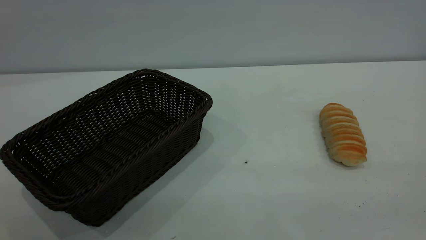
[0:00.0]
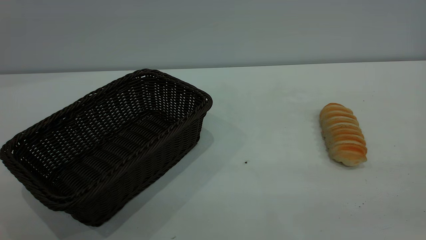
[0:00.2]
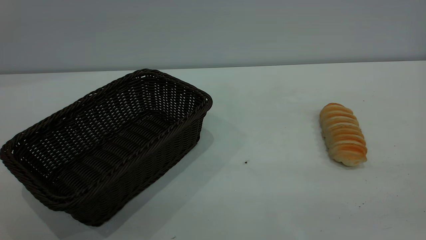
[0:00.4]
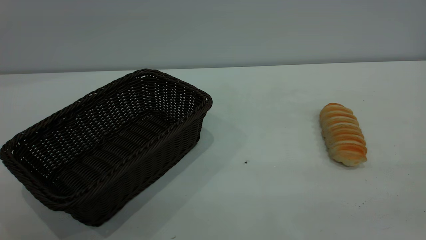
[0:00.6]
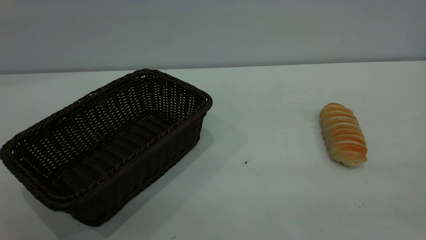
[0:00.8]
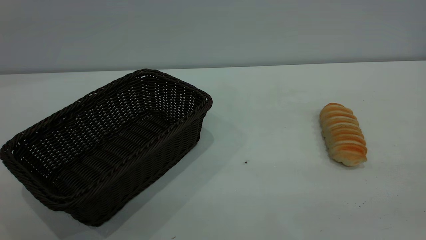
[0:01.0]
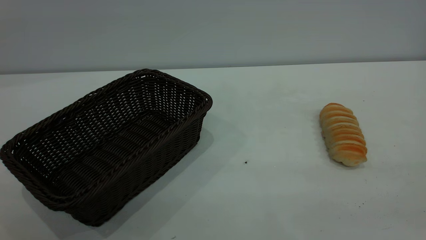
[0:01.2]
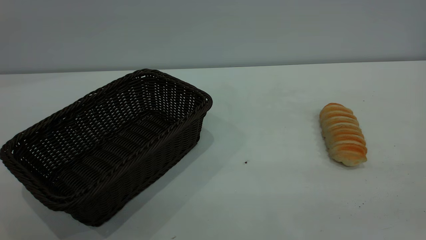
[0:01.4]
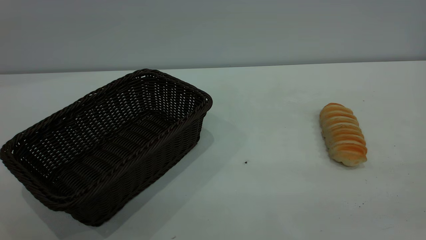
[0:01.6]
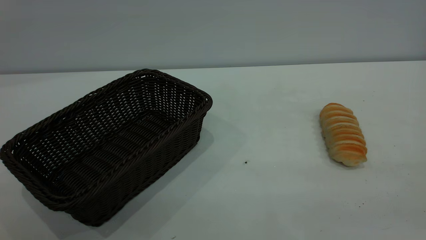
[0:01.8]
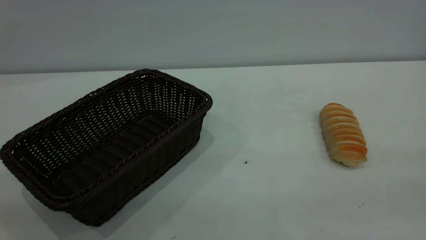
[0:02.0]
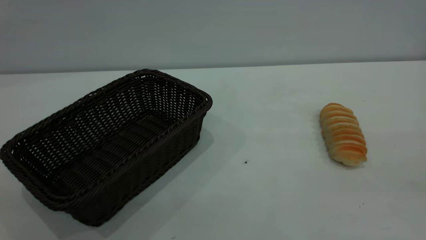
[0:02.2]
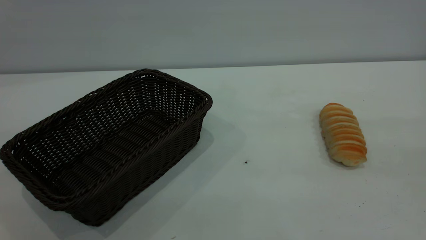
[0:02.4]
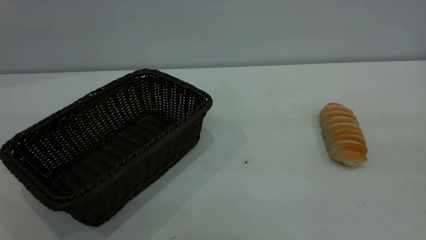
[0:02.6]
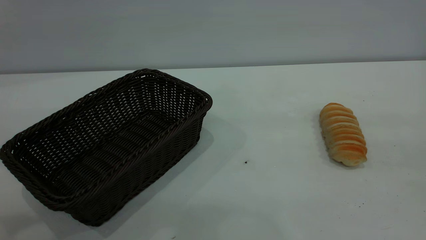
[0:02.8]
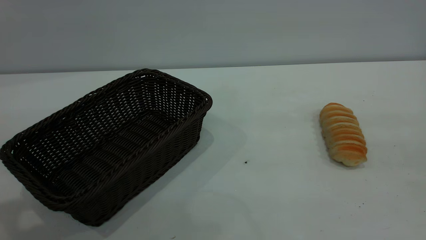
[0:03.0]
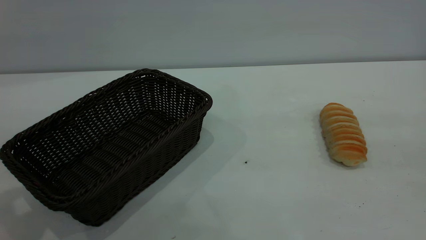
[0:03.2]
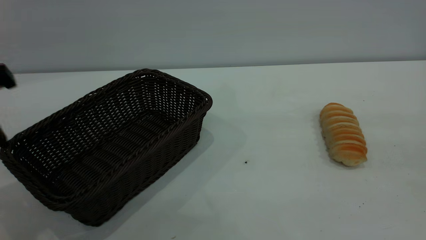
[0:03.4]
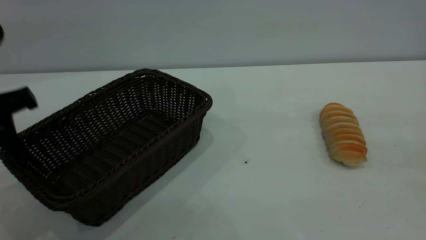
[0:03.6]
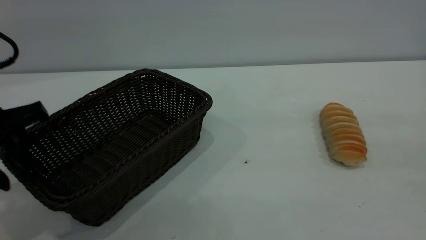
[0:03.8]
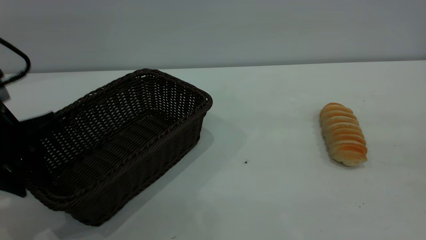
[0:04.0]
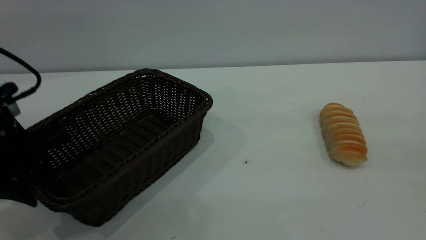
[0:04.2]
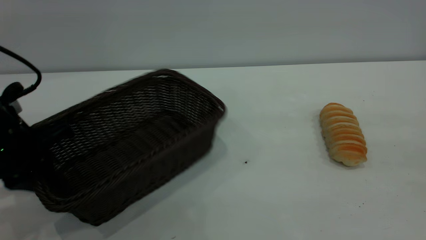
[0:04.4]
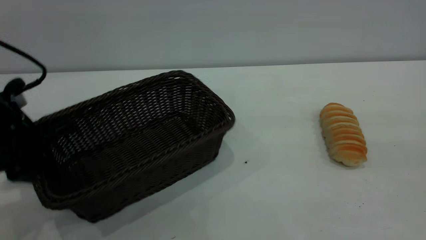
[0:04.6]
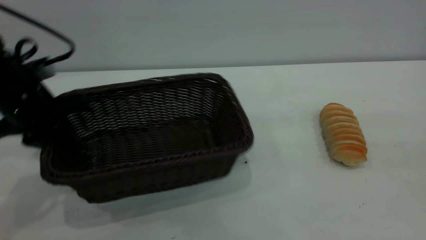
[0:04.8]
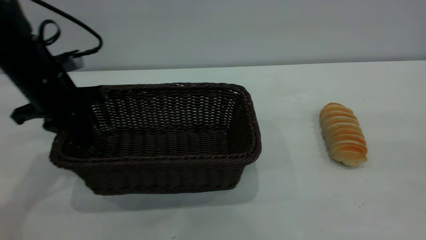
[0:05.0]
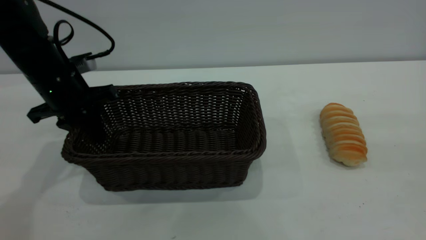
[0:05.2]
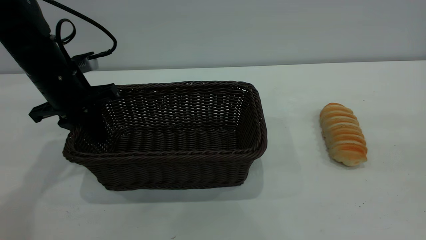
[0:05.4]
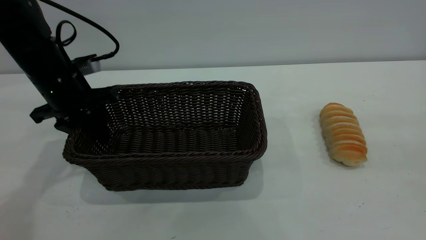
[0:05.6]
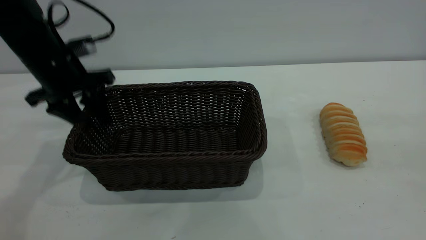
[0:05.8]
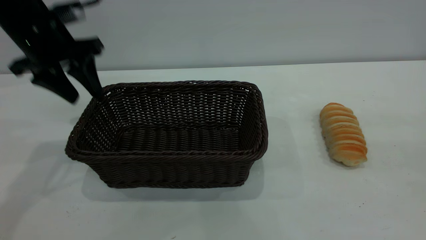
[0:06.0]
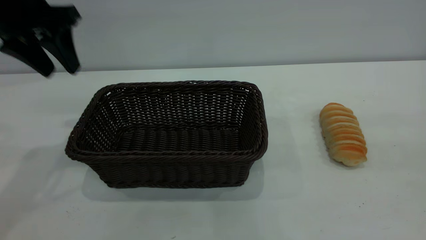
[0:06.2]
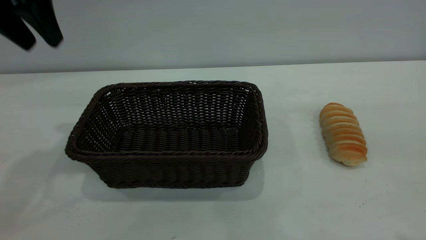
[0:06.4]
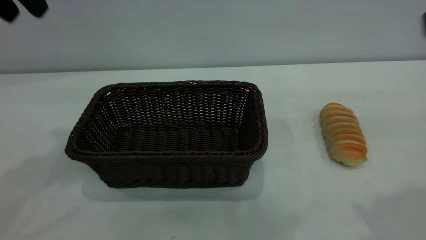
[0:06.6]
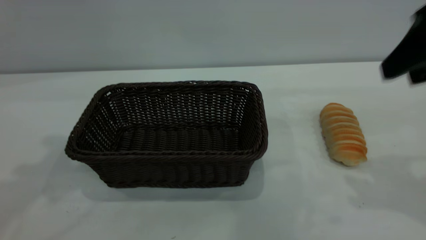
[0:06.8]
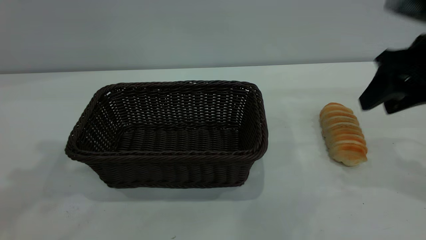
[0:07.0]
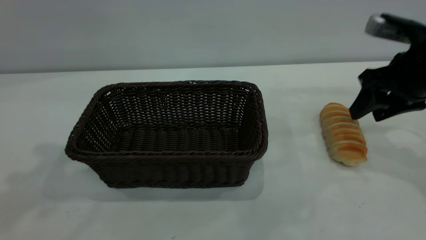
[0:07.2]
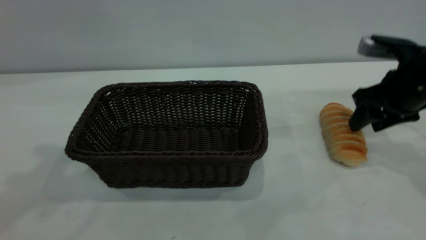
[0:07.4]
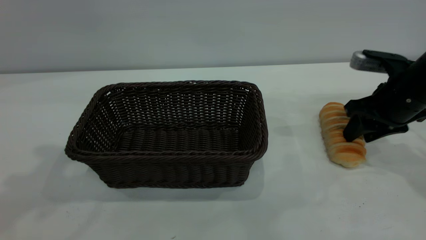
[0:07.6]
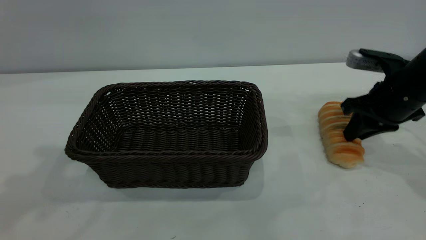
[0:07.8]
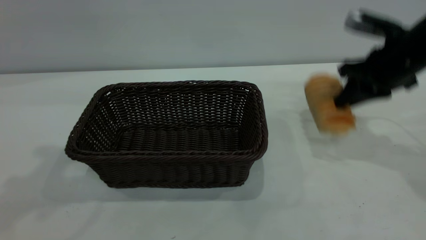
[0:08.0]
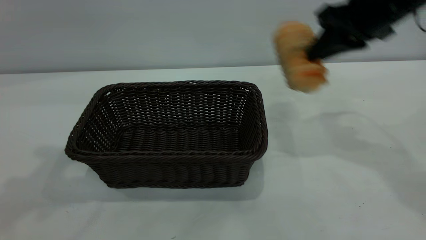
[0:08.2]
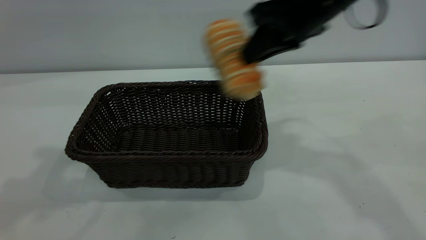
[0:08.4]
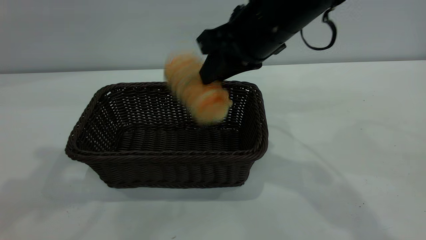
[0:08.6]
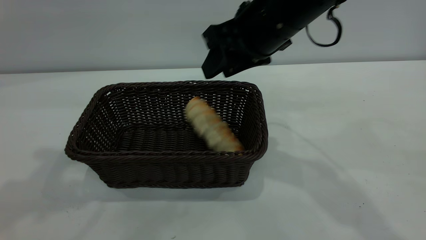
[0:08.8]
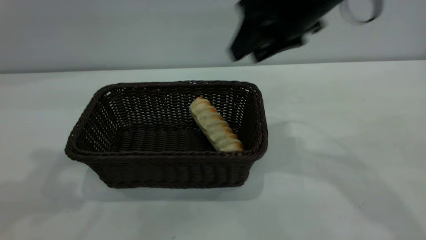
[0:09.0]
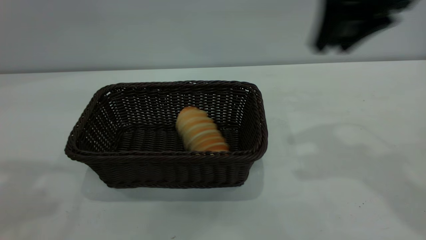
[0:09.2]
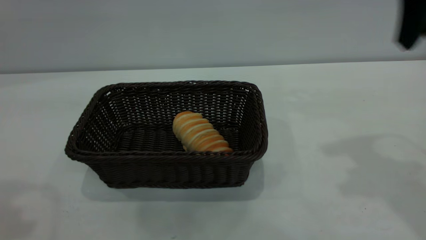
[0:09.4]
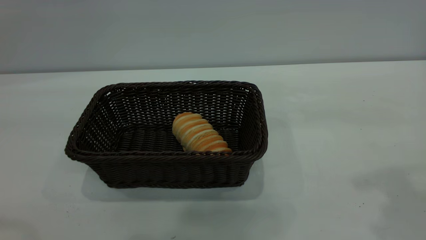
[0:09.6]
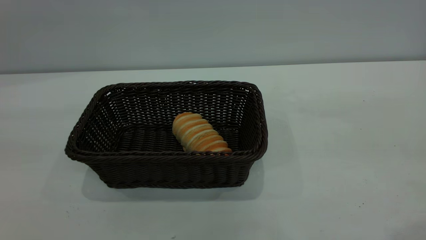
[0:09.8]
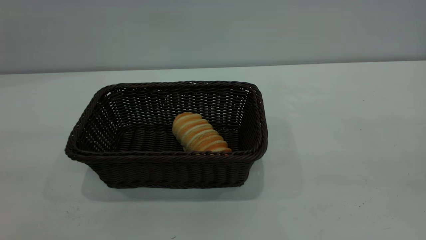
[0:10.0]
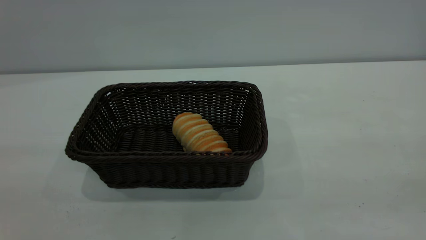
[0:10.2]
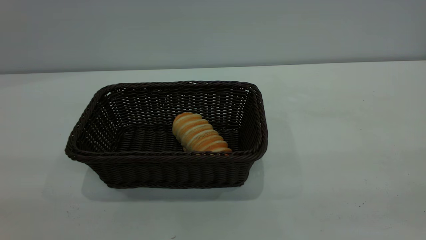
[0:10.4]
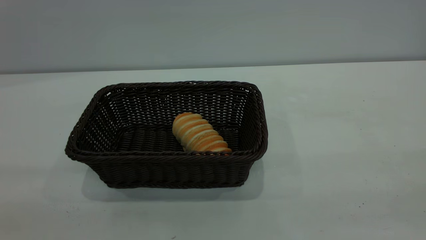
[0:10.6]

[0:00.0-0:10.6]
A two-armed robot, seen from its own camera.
Task of the whole recording: One hand grasps the black basket and places it in the middle of the table, while the other hand picks up the long bread and puts it into the black basket.
Step, 0:00.0 to 0:06.0: Move the basket to the center of view.
Step, 0:08.2 to 0:09.0: place the bread into the basket.
0:00.0 to 0:01.6: Neither gripper changes place.
0:03.0 to 0:04.6: The left gripper is displaced downward and forward by about 15 cm, and closes up.
0:04.6 to 0:06.0: The left gripper shifts approximately 15 cm forward and upward, and opens.
0:06.0 to 0:07.6: The right gripper goes some 40 cm forward and downward, while the left gripper travels upward and backward by approximately 20 cm.
0:07.6 to 0:09.0: The right gripper goes some 20 cm upward and to the left, and closes, then opens again.
0:09.0 to 0:10.6: The left gripper goes about 25 cm backward, while the right gripper goes roughly 35 cm backward and to the right.

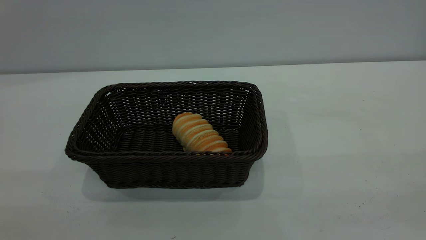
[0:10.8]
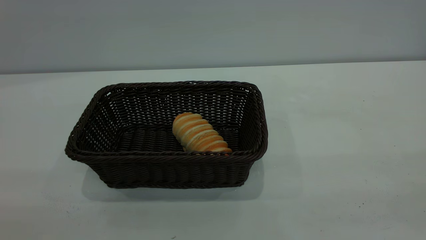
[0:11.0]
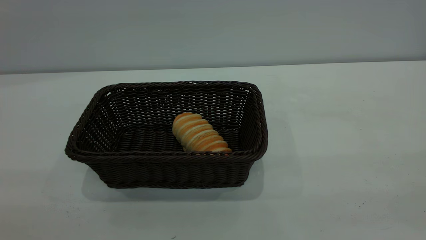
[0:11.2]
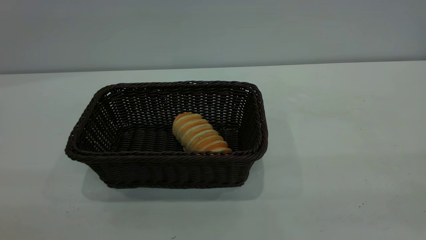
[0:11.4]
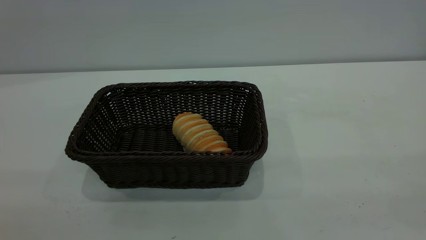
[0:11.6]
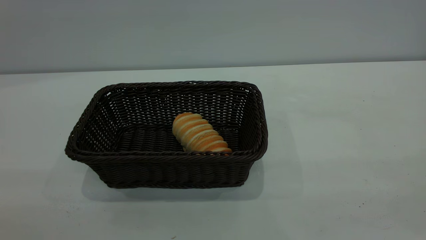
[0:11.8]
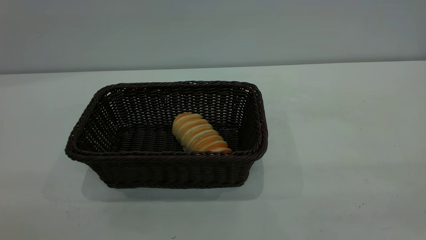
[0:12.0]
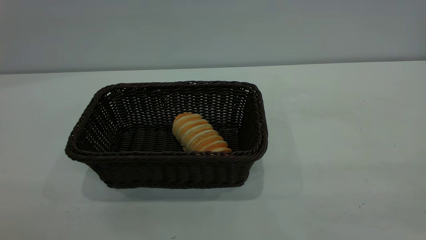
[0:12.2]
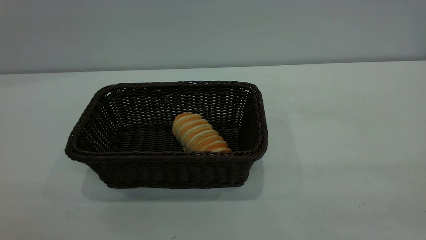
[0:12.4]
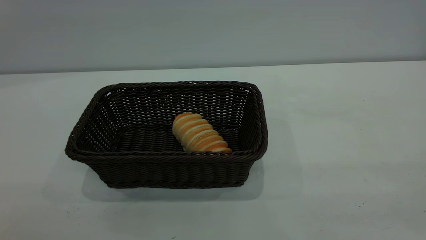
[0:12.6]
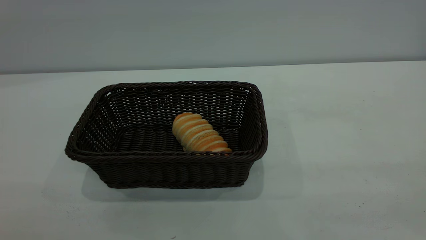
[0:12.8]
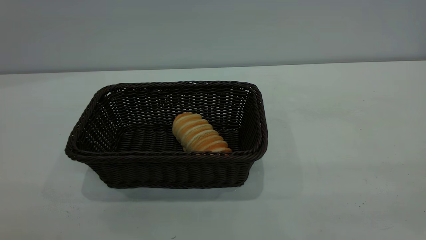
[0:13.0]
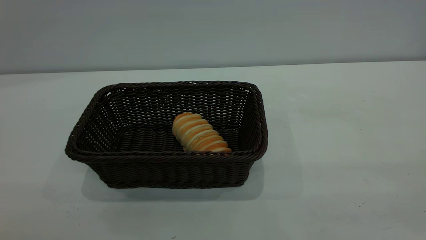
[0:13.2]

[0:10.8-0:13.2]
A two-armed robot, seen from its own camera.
Task of the whole recording: One hand grasps the black basket and places it in the middle of the table, while the other hand picks up the long bread and puts it into the black basket.
0:12.0 to 0:13.2: Neither gripper changes place.
